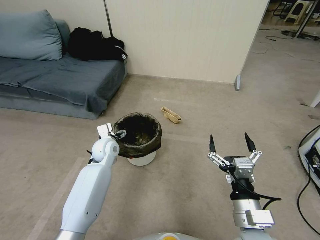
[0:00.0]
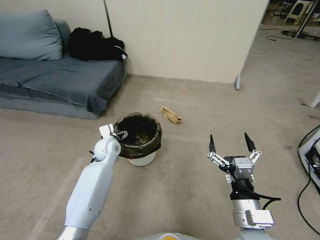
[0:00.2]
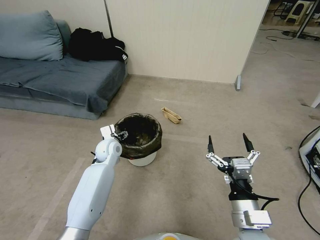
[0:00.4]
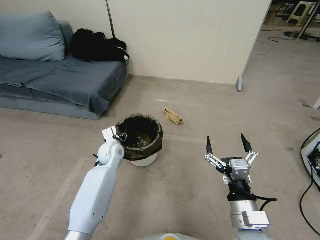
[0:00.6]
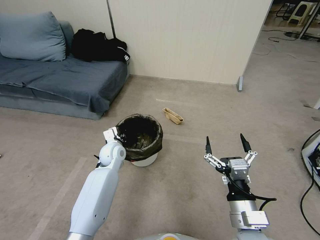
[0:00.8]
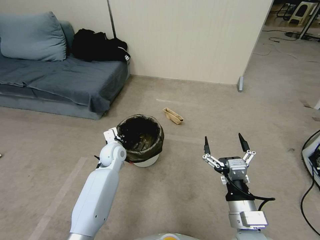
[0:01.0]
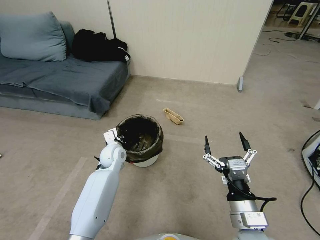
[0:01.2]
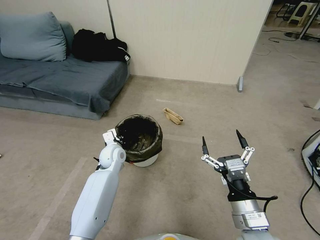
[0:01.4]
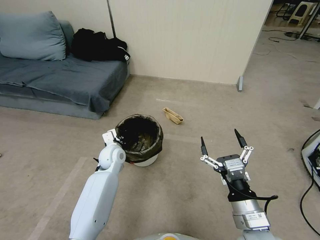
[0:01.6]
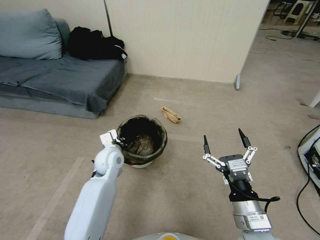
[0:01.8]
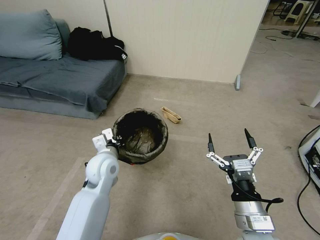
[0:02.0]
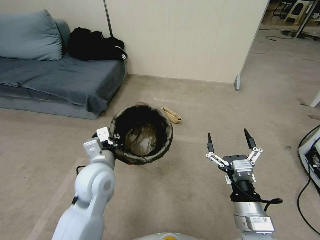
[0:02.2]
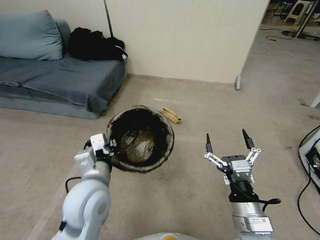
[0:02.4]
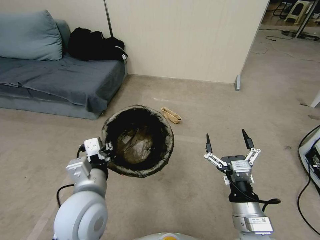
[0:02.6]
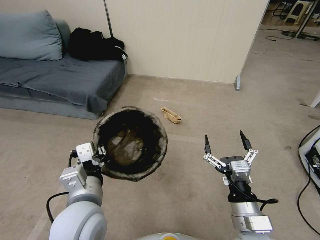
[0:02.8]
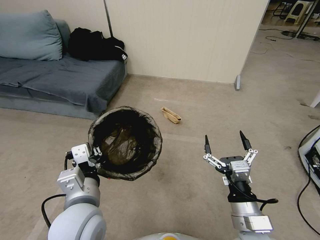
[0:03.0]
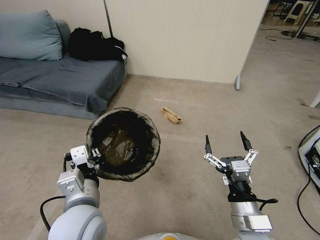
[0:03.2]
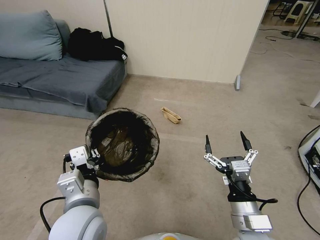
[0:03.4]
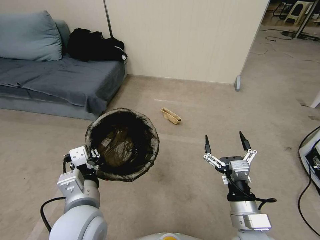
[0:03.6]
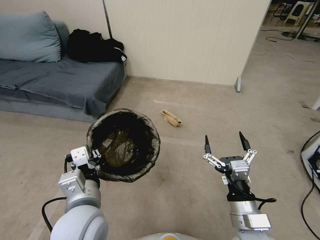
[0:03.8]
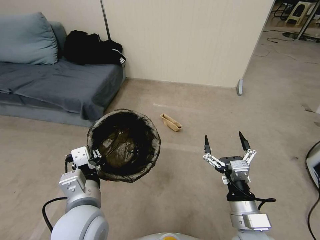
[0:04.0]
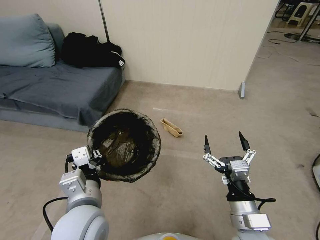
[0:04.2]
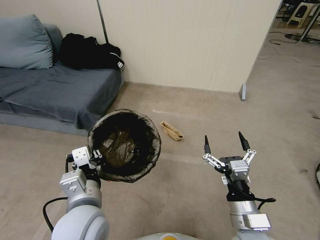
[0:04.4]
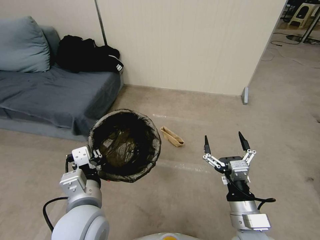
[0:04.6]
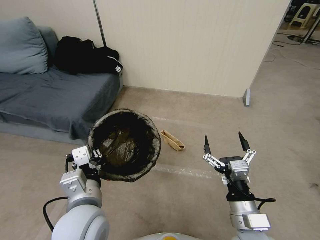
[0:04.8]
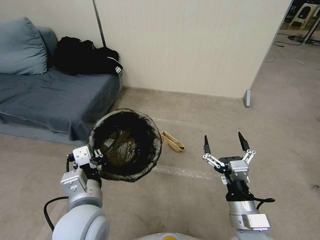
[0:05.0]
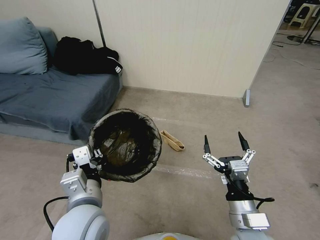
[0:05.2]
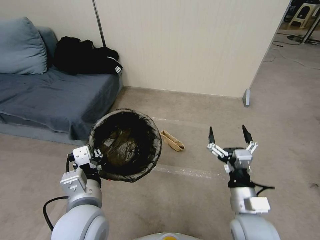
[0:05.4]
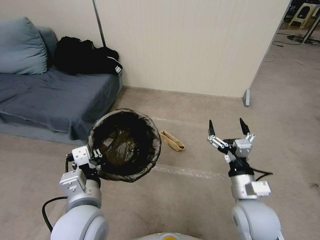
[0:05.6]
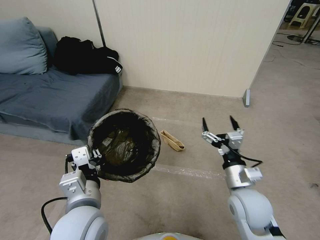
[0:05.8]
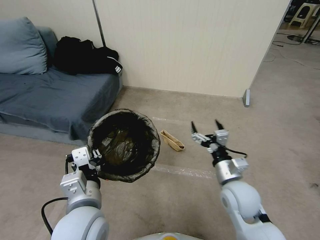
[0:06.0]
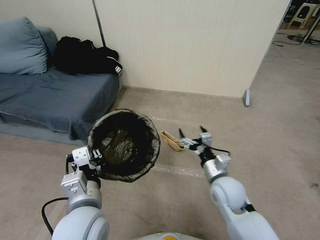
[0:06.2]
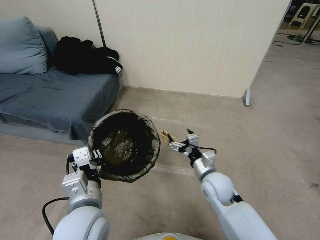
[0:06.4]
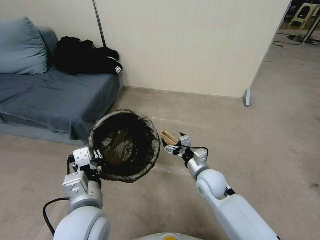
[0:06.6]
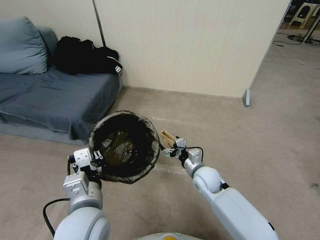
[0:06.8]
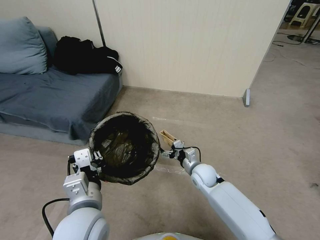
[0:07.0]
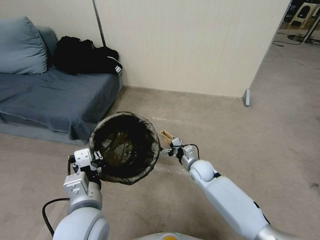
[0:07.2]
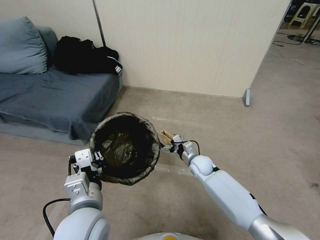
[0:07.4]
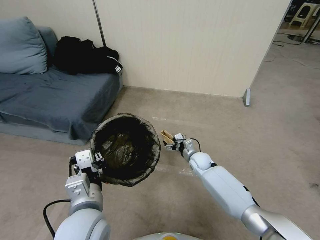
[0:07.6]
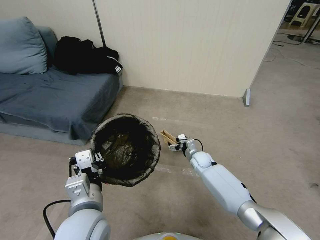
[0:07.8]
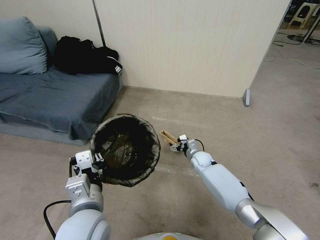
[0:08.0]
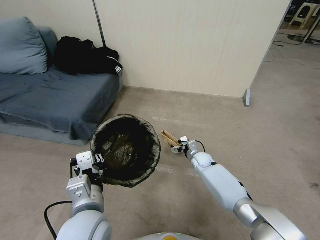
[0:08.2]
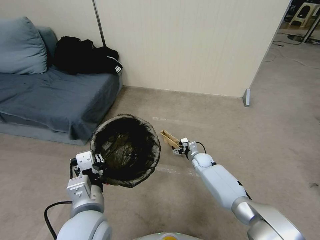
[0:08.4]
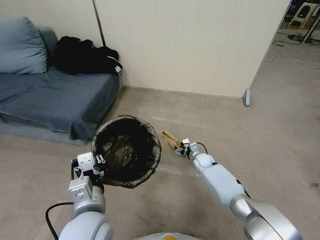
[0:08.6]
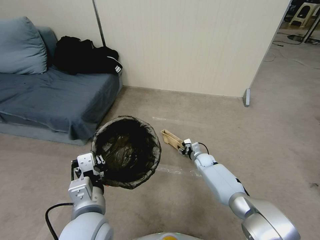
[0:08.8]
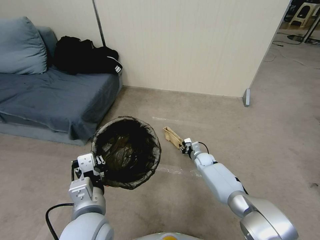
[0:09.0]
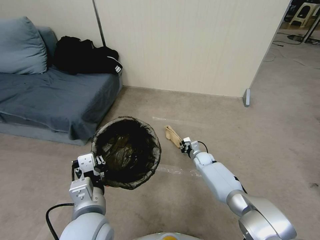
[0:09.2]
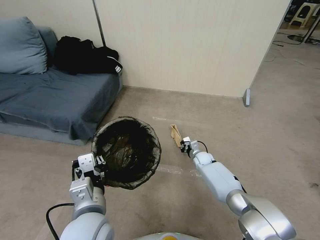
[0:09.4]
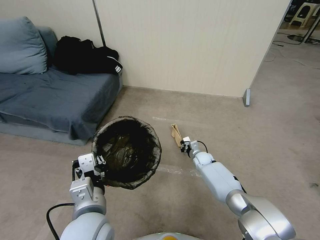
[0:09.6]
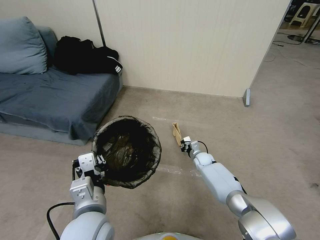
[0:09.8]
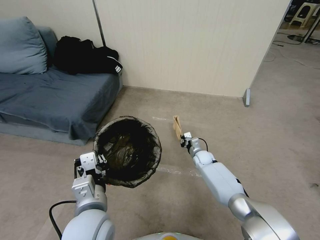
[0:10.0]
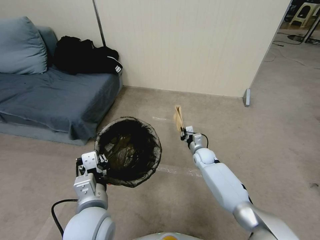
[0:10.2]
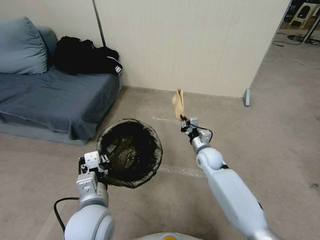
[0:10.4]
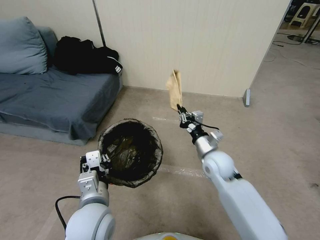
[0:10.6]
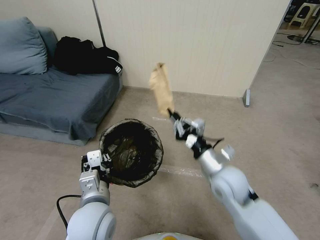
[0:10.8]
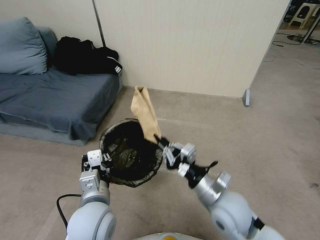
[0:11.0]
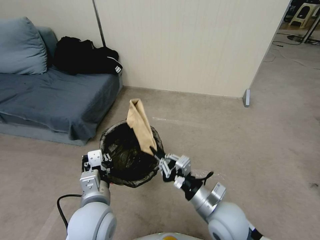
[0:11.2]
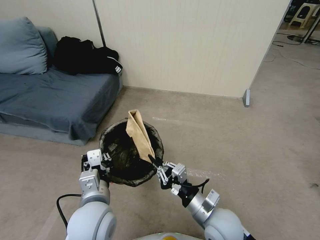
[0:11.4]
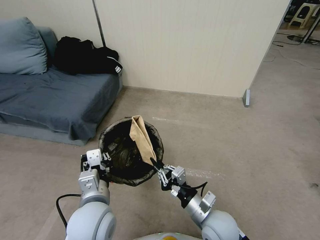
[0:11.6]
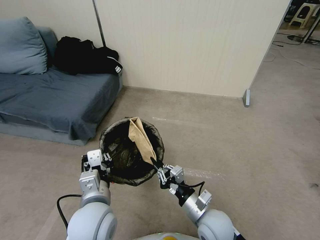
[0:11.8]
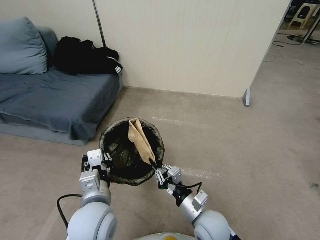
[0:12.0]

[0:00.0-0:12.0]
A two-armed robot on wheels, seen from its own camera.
Task of the whole recording: Pick up the trash bin, then pick up the garbage from the floor and place it into the trash bin.
0:00.0 to 0:01.6: The left gripper closes its fingers.
0:01.6 to 0:03.0: The left gripper shifts roughly 30 cm backward and upward.
0:03.0 to 0:04.4: Both grippers stay put.
0:04.4 to 0:06.0: The right gripper heads forward, covering approximately 10 cm.
0:06.0 to 0:07.6: The right gripper goes approximately 25 cm forward and downward.
0:07.6 to 0:09.0: The right gripper moves downward, approximately 5 cm, and closes its fingers.
0:09.0 to 0:10.4: The right gripper goes approximately 15 cm upward and backward, and closes its fingers.
0:10.4 to 0:12.0: The right gripper goes approximately 25 cm backward.

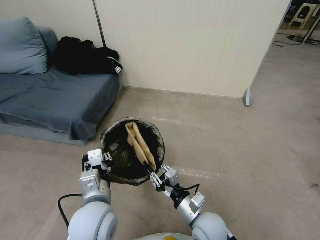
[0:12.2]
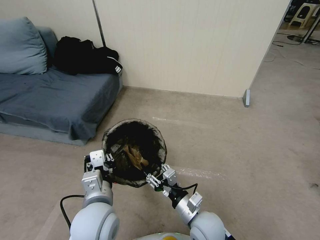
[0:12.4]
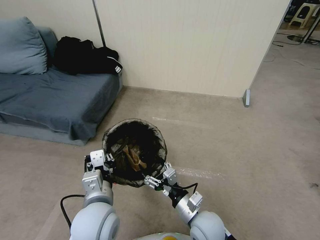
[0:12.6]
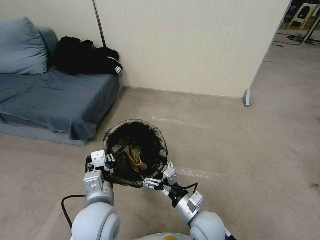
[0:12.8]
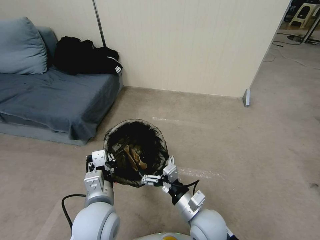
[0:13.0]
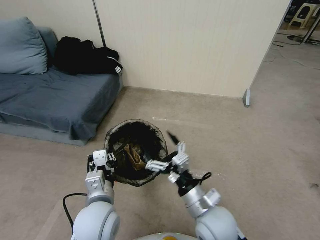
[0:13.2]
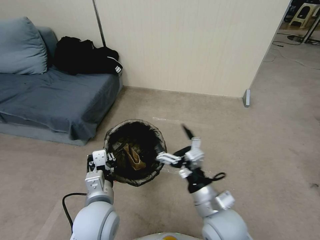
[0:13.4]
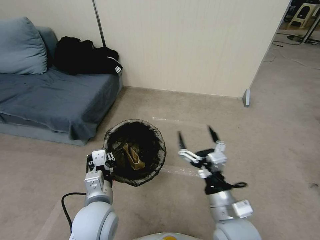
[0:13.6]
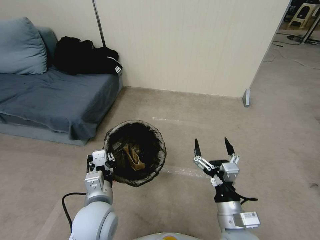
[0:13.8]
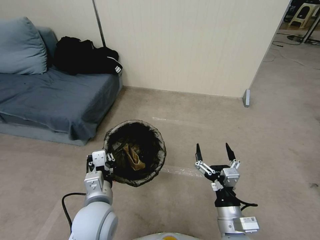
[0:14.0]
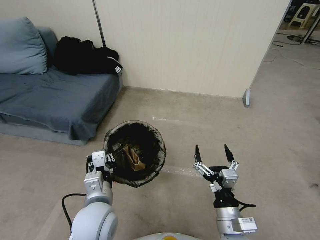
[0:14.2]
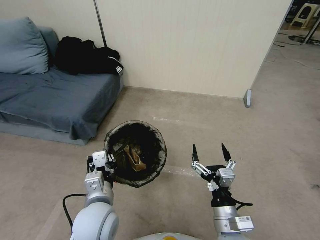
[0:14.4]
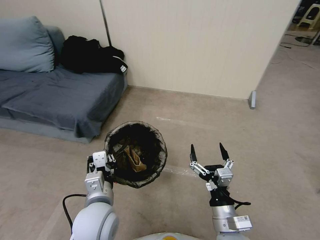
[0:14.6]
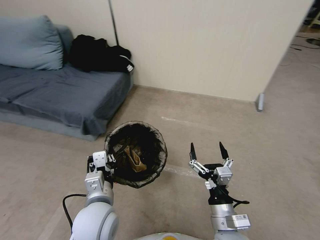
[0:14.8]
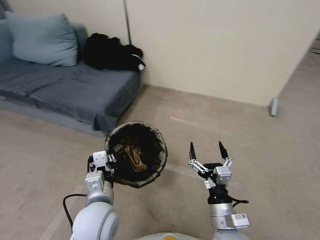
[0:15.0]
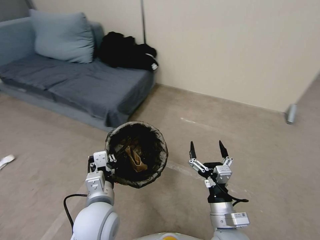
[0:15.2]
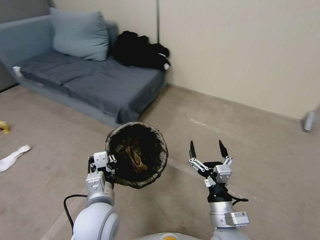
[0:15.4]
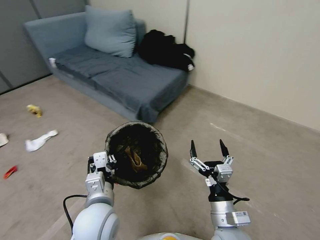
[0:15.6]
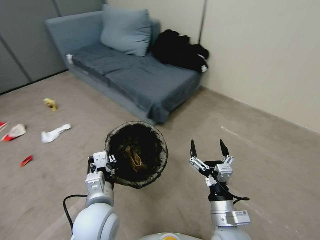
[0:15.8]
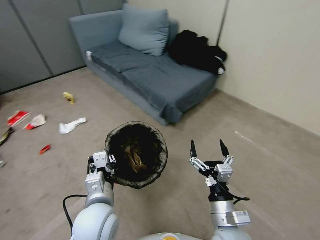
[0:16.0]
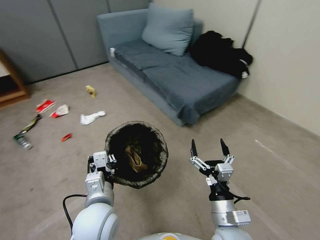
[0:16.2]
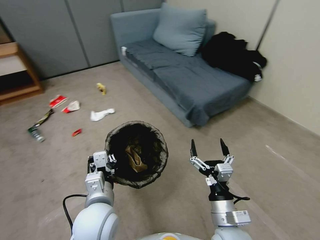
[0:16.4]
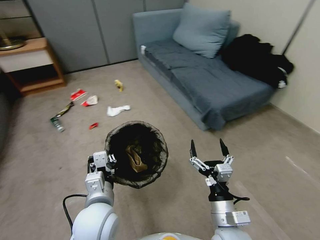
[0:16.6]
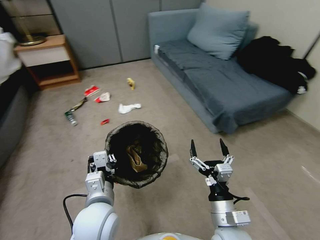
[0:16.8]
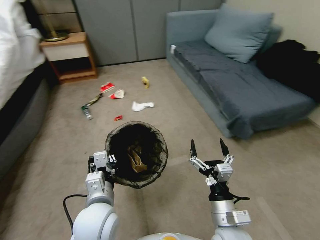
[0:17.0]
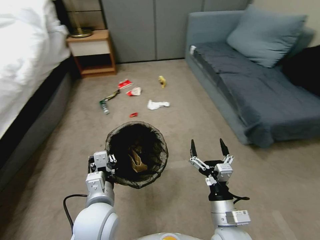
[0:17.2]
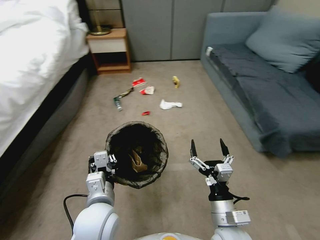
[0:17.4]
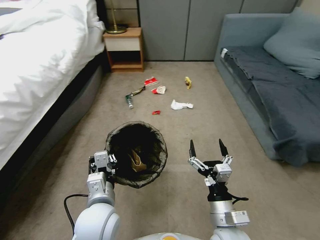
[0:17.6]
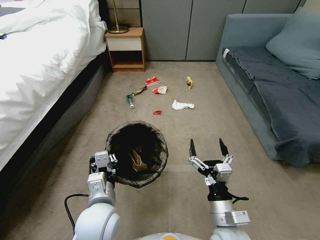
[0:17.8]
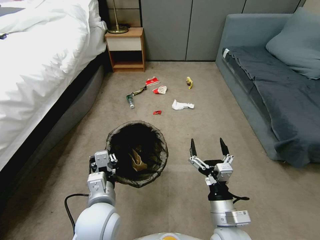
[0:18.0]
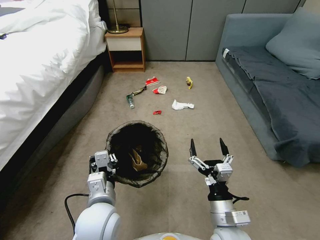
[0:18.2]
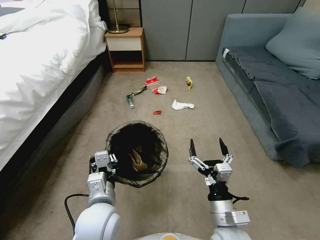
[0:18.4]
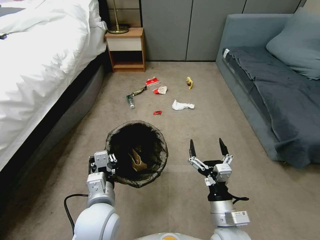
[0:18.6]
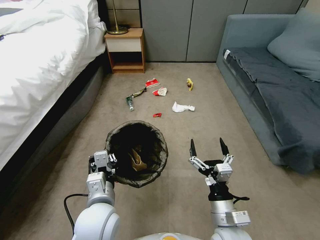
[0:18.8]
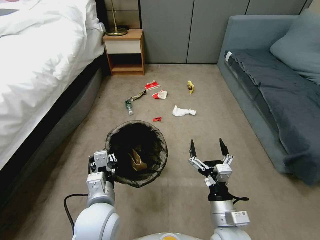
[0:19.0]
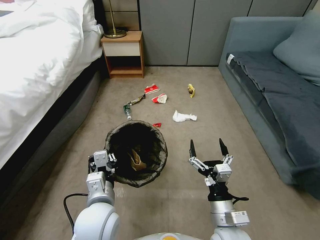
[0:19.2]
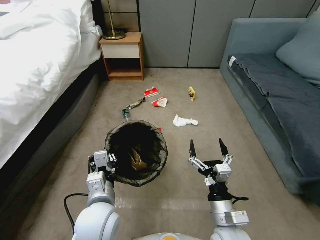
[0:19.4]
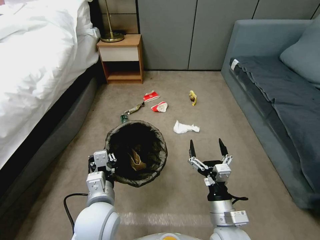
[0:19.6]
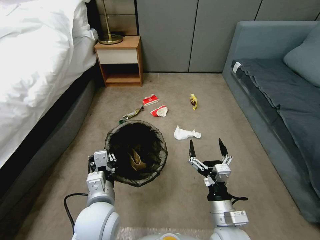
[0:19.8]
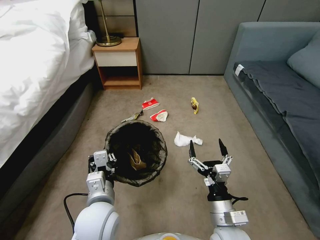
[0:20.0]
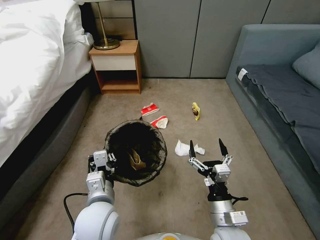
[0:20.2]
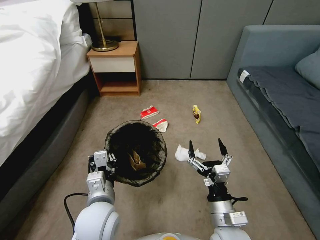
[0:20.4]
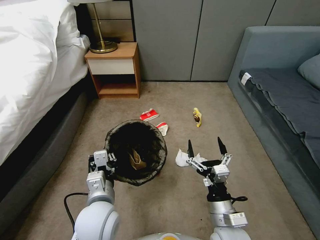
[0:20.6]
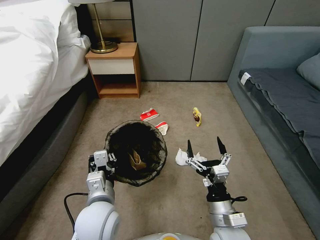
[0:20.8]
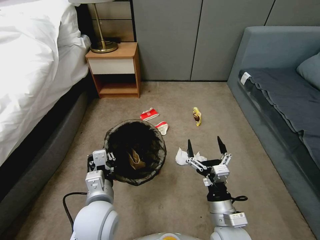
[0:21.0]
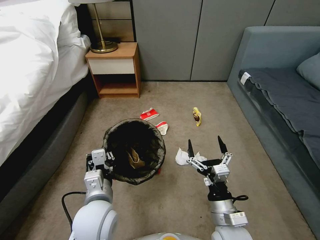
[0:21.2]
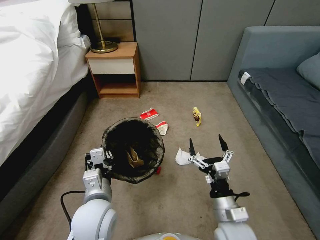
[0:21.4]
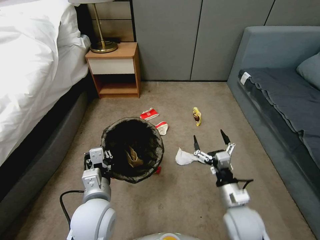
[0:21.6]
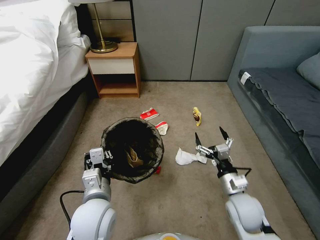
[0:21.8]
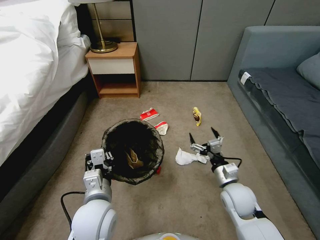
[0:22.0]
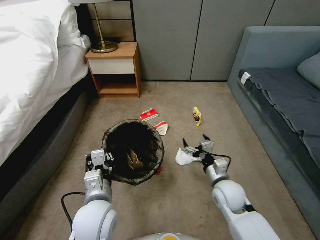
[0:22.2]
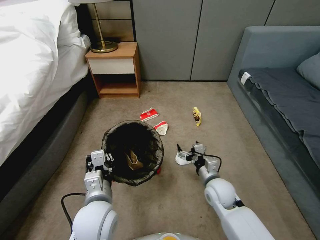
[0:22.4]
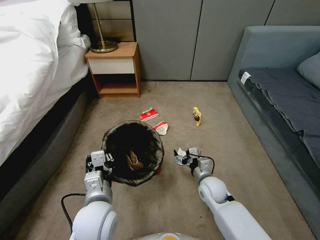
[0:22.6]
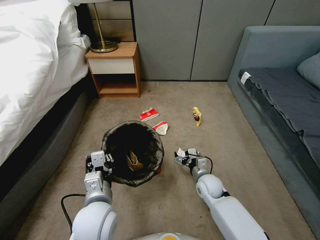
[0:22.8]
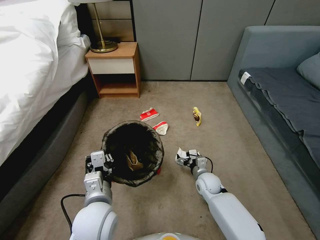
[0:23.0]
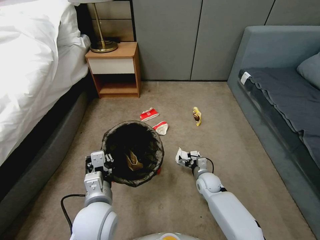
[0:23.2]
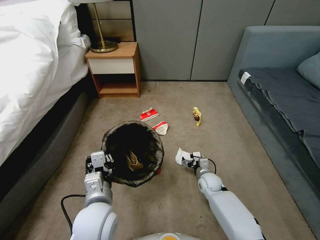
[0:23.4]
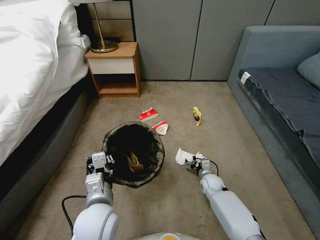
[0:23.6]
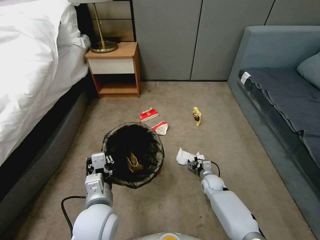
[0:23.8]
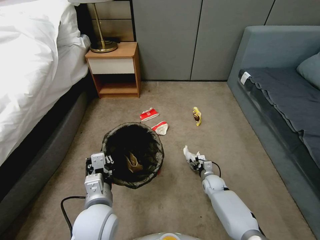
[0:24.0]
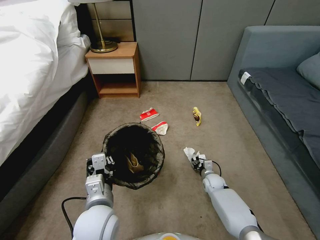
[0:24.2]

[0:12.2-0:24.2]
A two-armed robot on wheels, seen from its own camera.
Task of the whole recording: Pick up the trash bin, then pick up the garbage from the floor and place it into the trash bin.
0:12.2 to 0:13.8: The right gripper shifts approximately 10 cm upward and to the right, and opens up.
0:21.2 to 0:22.6: The right gripper is displaced forward and downward by roughly 20 cm.
0:22.6 to 0:24.2: The right gripper shifts roughly 15 cm downward, forward and to the right, and closes.
